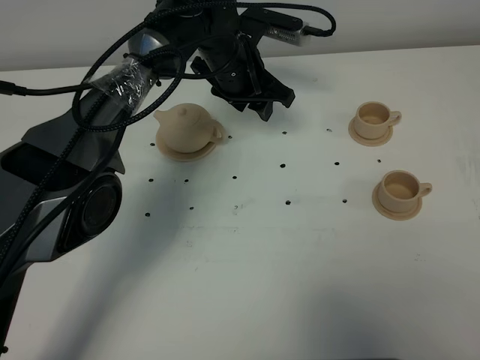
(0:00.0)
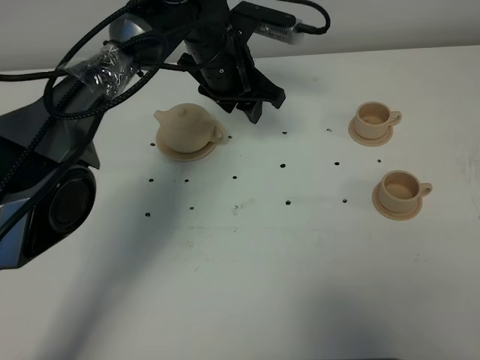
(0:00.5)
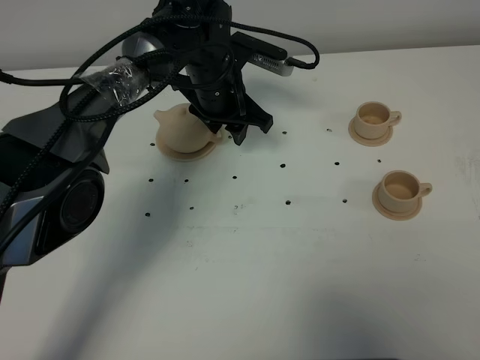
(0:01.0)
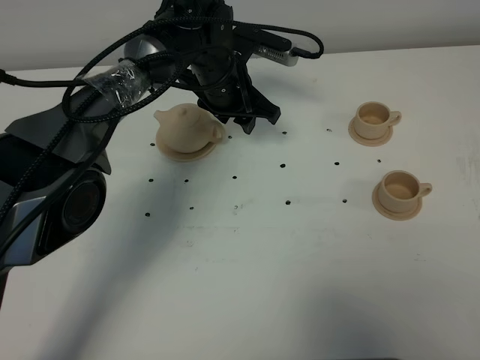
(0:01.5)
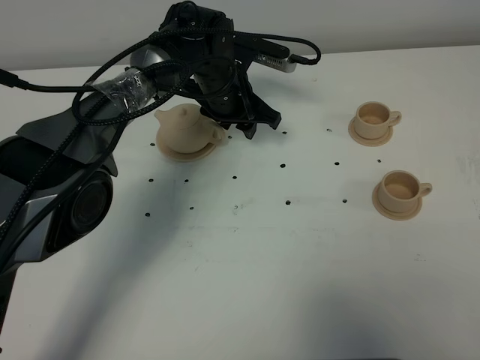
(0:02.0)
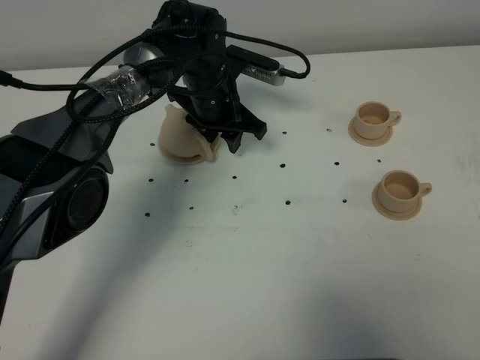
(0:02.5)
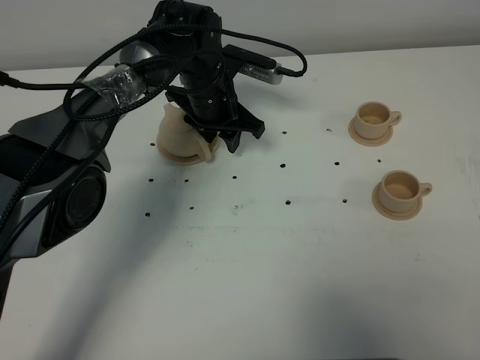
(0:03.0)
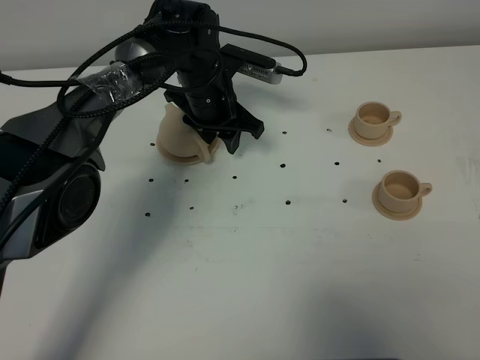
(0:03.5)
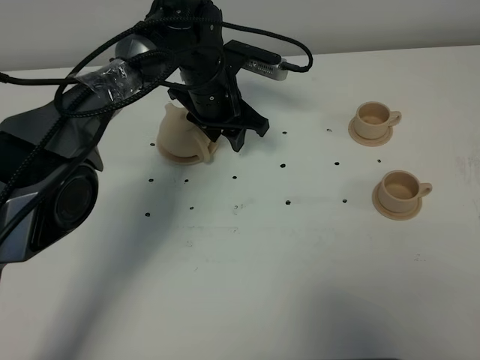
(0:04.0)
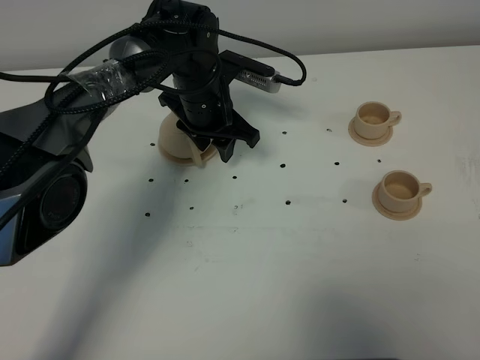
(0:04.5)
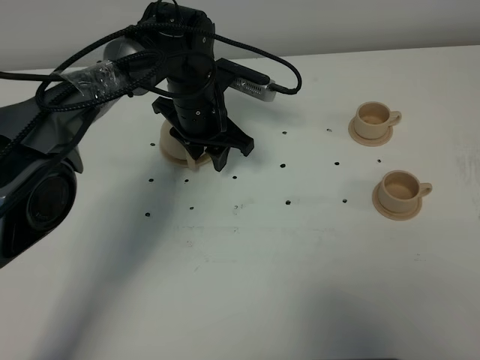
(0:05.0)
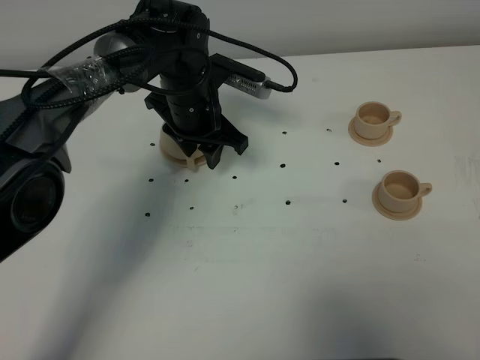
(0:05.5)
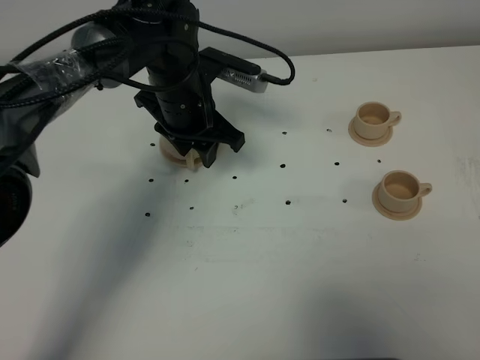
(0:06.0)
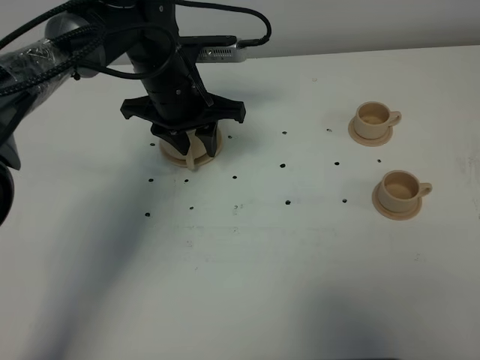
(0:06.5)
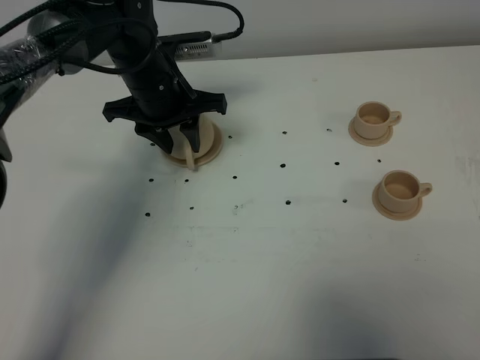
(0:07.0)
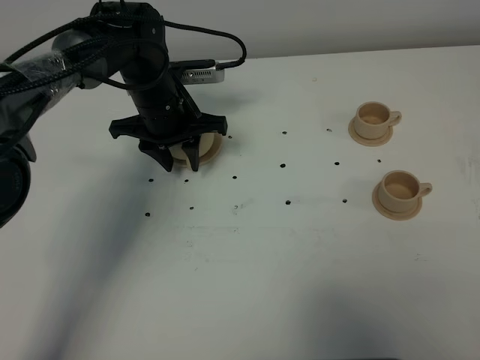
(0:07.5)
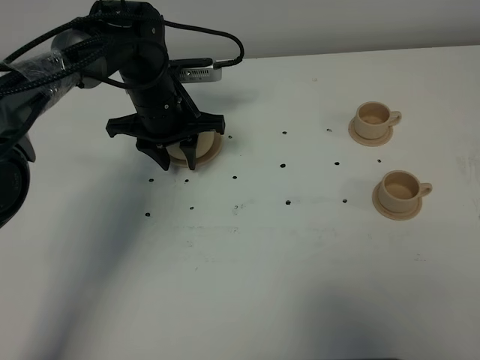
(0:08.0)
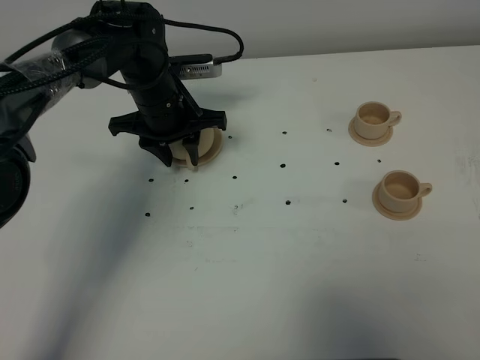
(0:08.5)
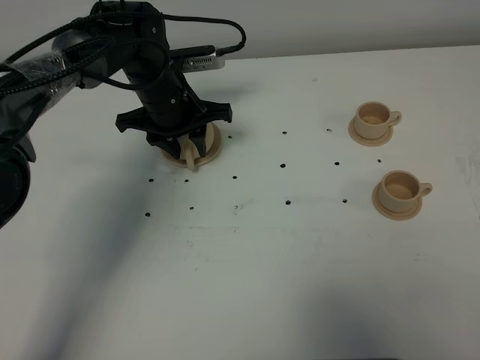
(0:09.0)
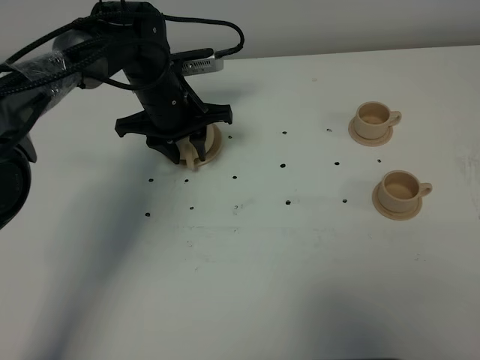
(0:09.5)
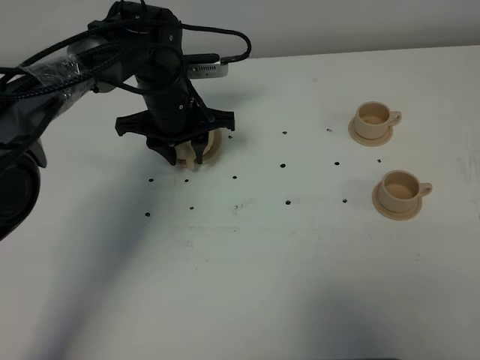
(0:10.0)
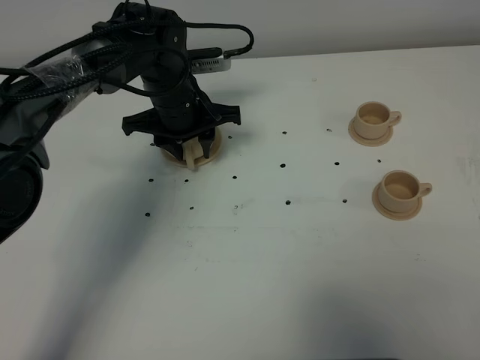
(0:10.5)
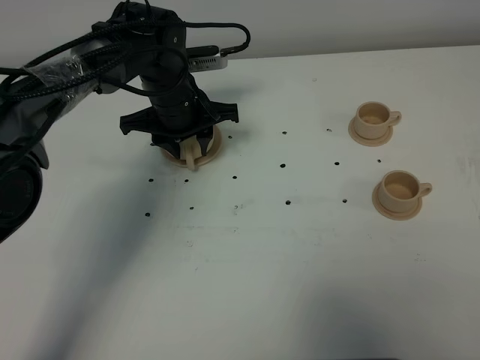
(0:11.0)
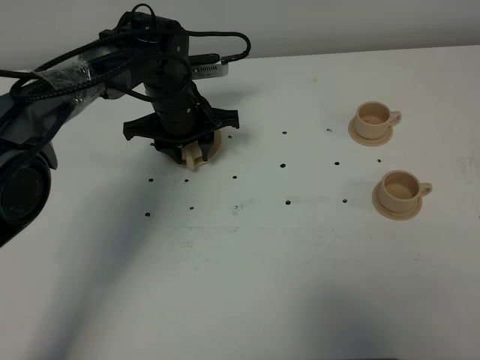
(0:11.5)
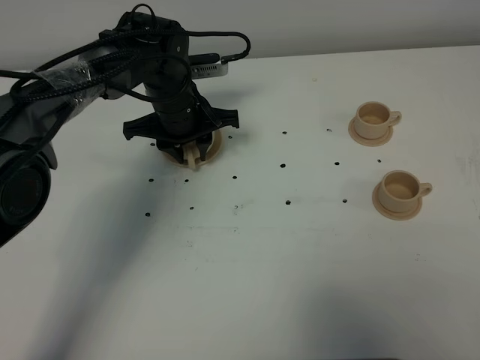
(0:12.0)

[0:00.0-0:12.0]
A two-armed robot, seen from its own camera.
Task of the whole recording: grasp the brown teapot and pour the tea into the two brown teacups one by one, put the brown teapot back in its original place.
0:00.0 to 0:04.0: The grippers move only a little.
0:04.0 to 0:06.0: The left gripper shifts by about 5 cm.
0:06.0 to 0:08.0: The left gripper ends up some 5 cm from where it was.
0:08.0 to 0:12.0: The grippers make only small movements.

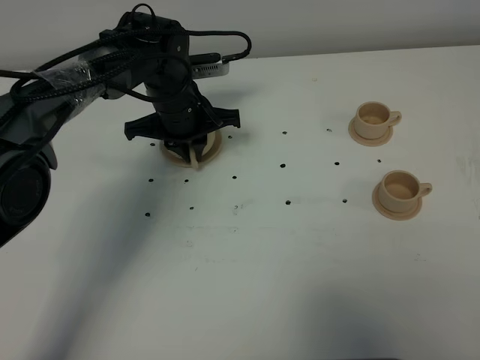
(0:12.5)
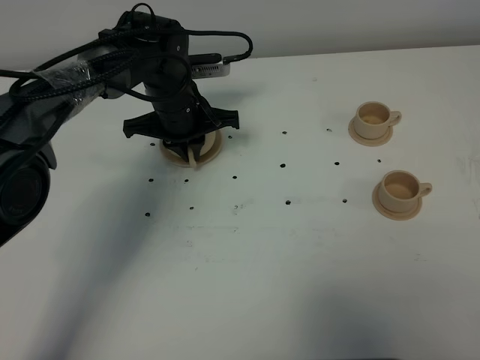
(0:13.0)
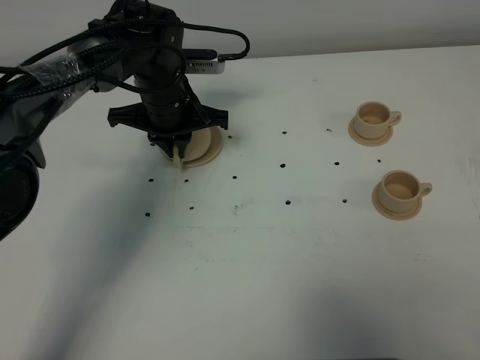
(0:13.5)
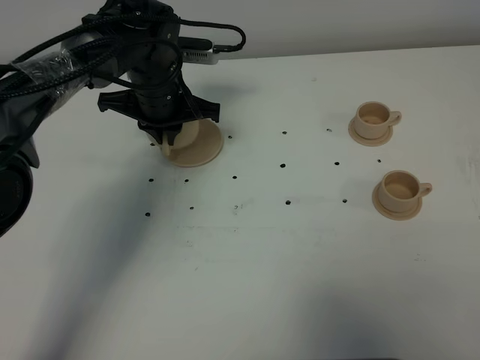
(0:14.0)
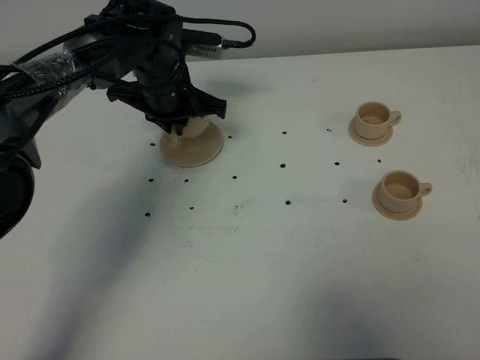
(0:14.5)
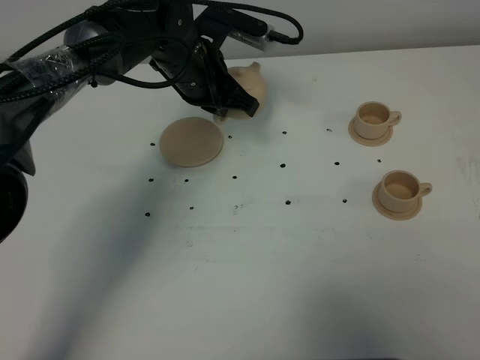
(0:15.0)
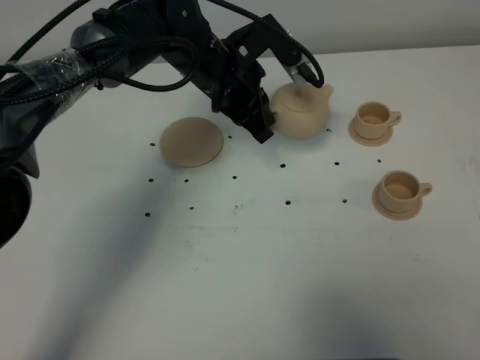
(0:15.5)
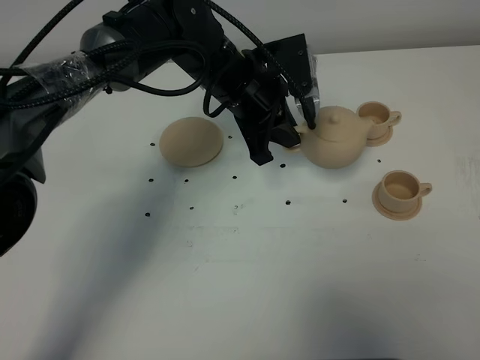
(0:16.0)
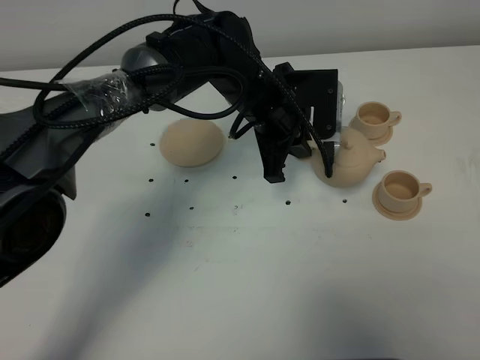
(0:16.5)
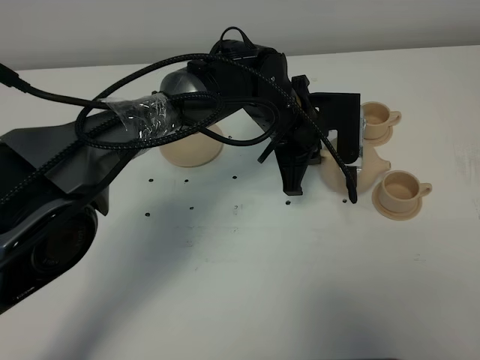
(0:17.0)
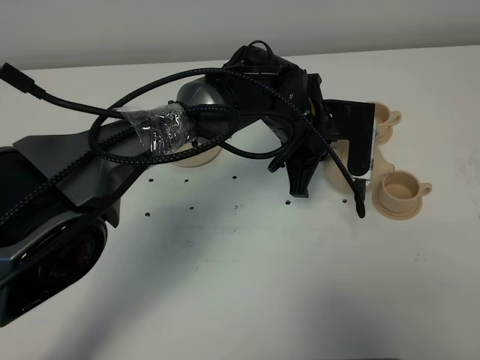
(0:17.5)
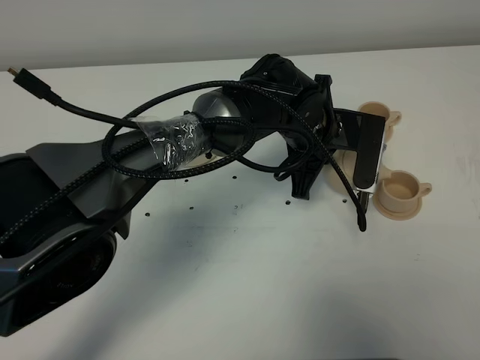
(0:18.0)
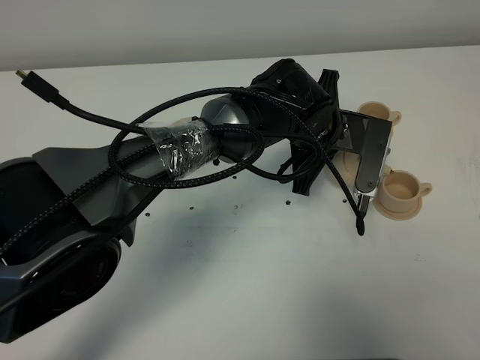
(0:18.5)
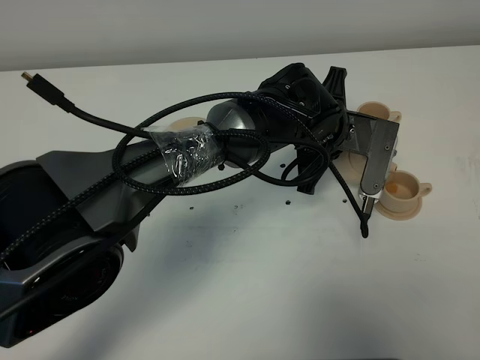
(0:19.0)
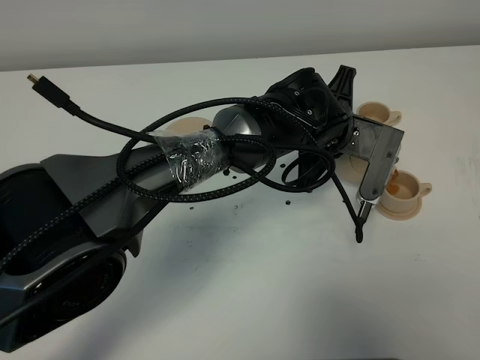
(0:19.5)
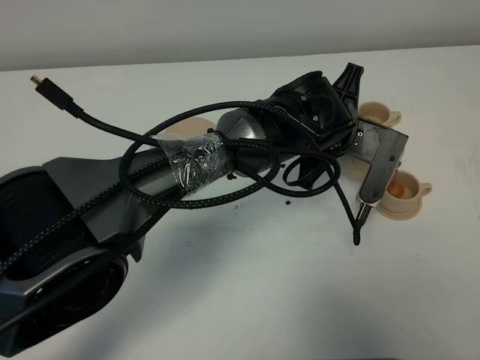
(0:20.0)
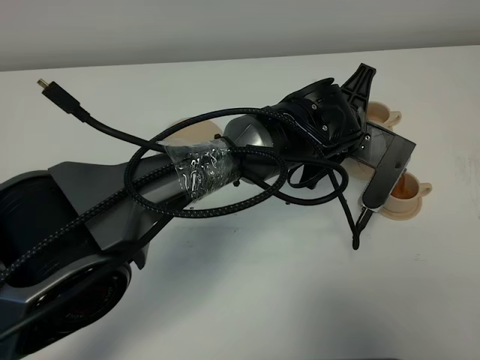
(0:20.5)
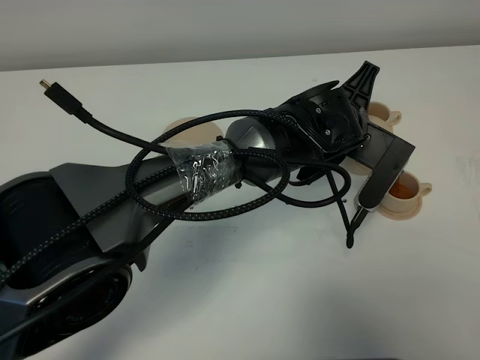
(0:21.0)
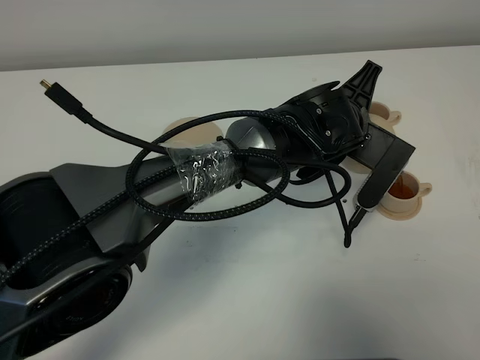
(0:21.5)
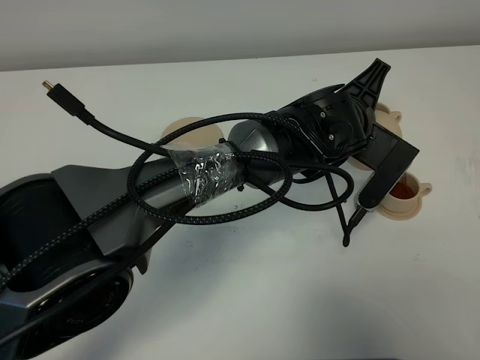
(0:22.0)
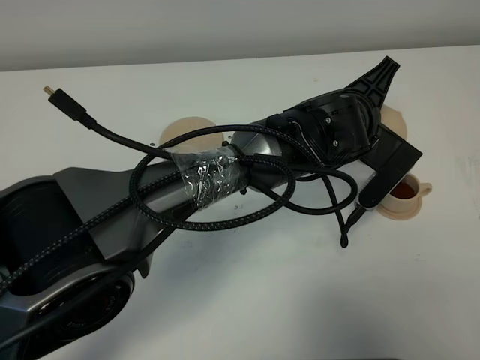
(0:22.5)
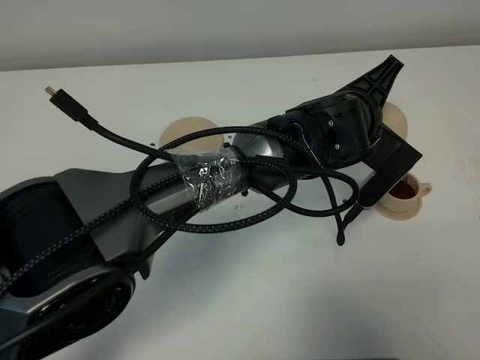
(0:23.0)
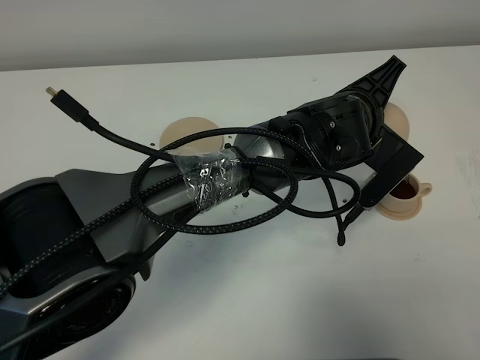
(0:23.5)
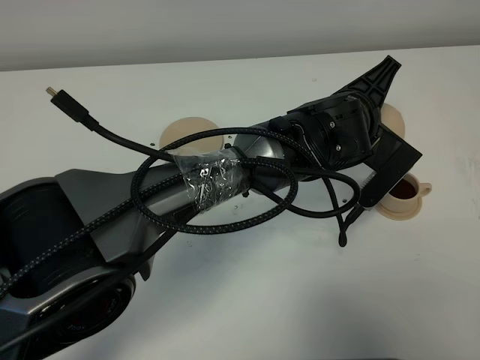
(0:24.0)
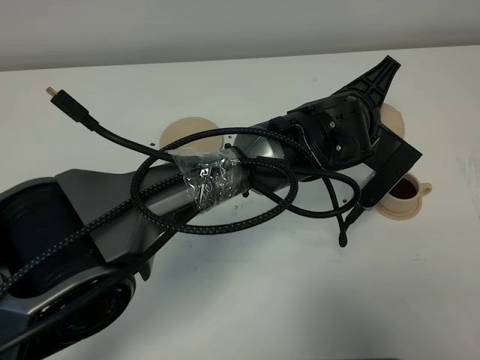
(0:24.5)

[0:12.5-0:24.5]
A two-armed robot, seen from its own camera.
Task of the whole recording: grasp the brown teapot and pour the tea into the two brown teacups one by one, put the brown teapot back in its original place.
0:12.5 to 0:14.5: The grippers stay close to where they were, moving slightly.
0:14.5 to 0:16.5: The left gripper shifts some 15 cm to the right and backward.
0:16.5 to 0:18.5: The left gripper goes approximately 5 cm to the right.
0:20.5 to 0:22.5: The grippers move only a little.
0:22.5 to 0:24.5: Both grippers stay about where they are.

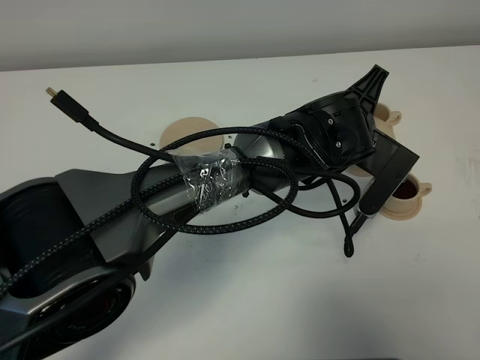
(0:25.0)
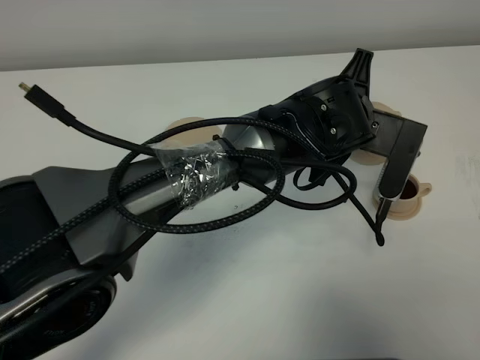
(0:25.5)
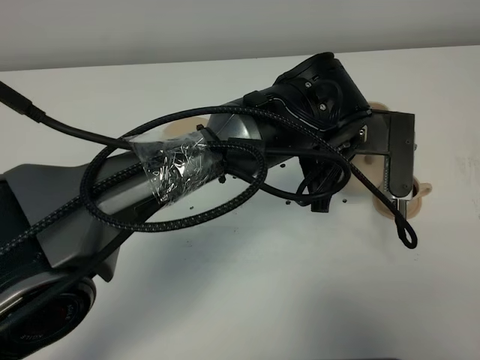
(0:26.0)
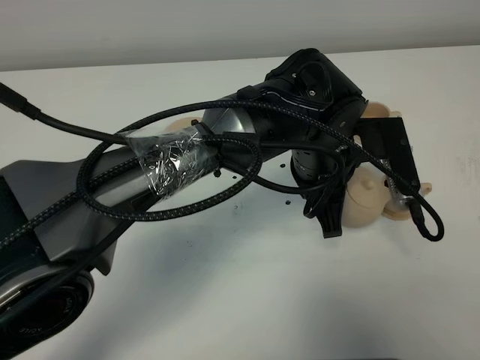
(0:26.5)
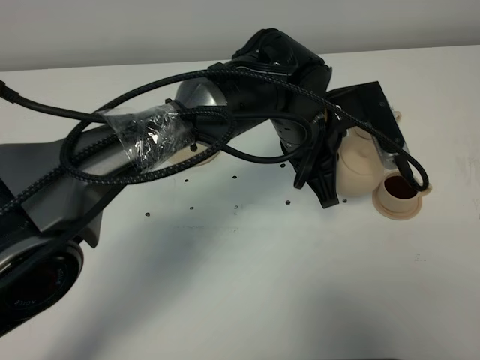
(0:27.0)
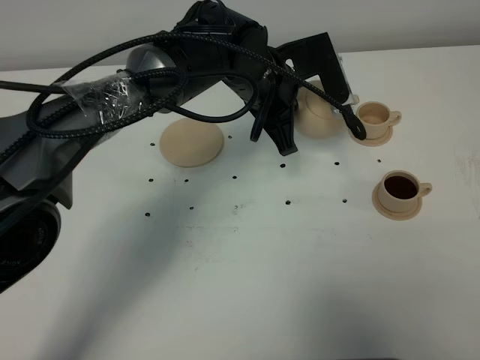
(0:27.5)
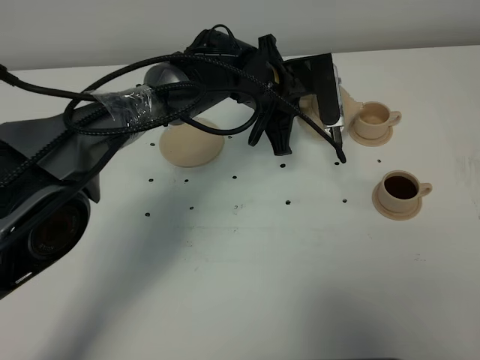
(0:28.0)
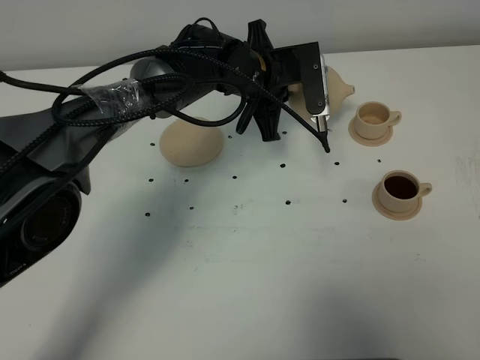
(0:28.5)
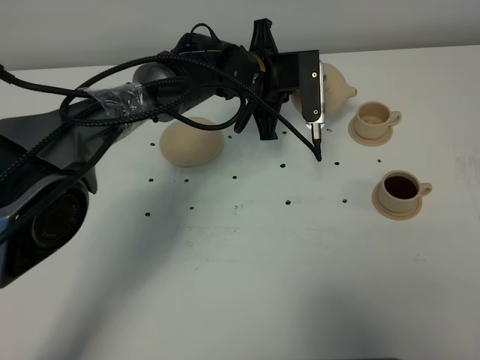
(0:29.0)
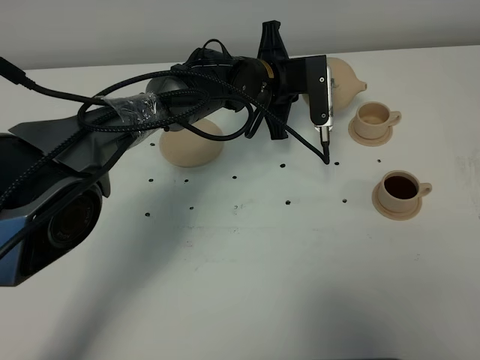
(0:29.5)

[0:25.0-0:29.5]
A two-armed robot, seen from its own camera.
Task of the whole recording: grasp the brown teapot and pour the tea into the two brown teacups one by one, put the brown teapot back in its original place.
0:25.0 to 0:27.0: The left gripper shifts by some 5 cm.
0:27.0 to 0:29.5: The left gripper travels forward by some 10 cm.
